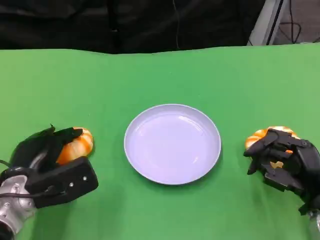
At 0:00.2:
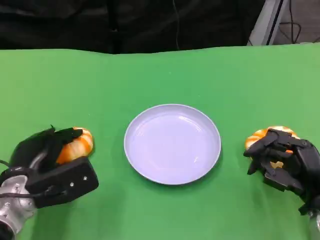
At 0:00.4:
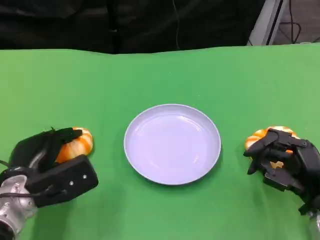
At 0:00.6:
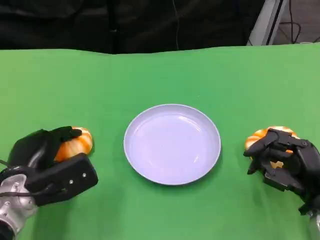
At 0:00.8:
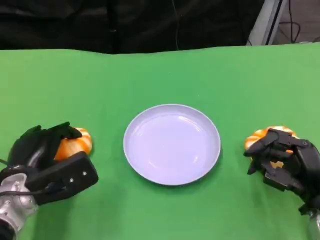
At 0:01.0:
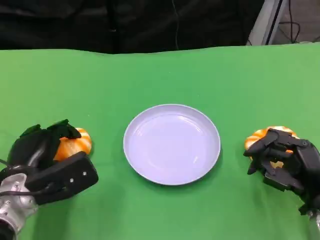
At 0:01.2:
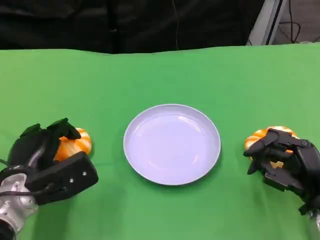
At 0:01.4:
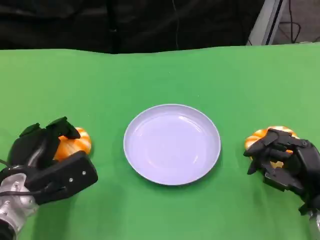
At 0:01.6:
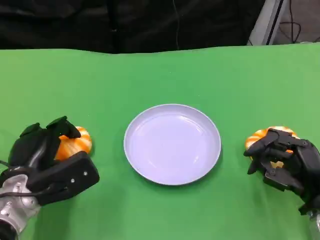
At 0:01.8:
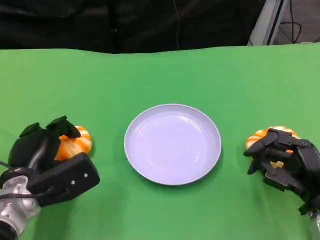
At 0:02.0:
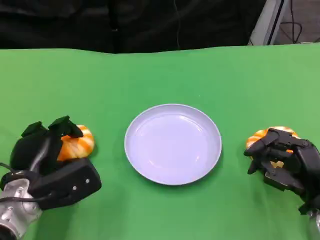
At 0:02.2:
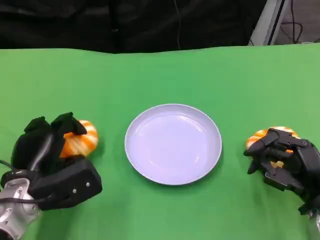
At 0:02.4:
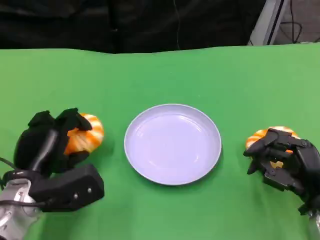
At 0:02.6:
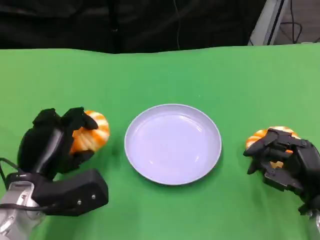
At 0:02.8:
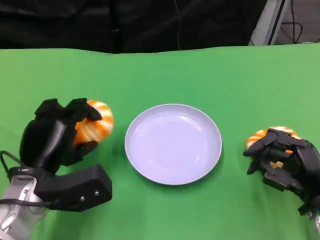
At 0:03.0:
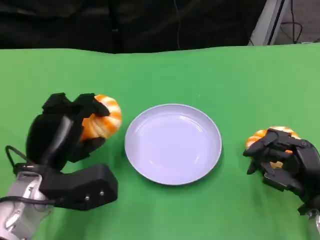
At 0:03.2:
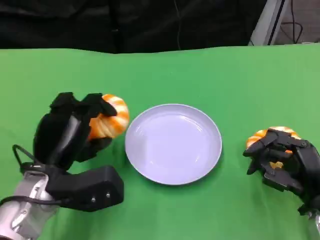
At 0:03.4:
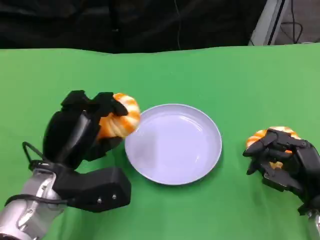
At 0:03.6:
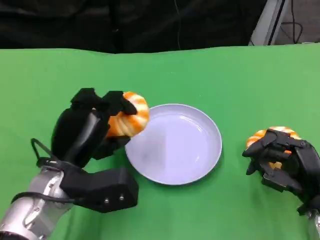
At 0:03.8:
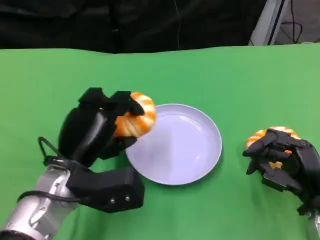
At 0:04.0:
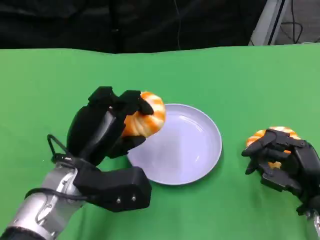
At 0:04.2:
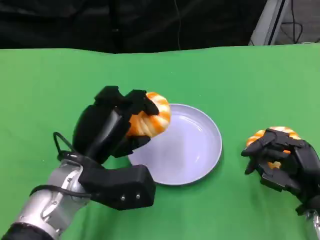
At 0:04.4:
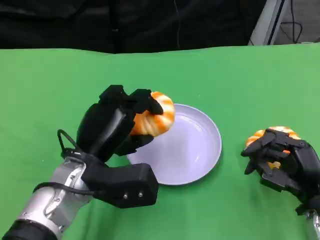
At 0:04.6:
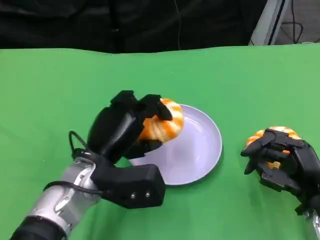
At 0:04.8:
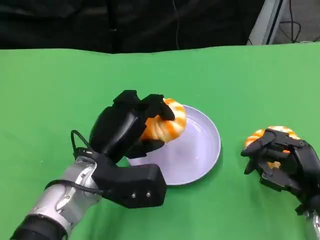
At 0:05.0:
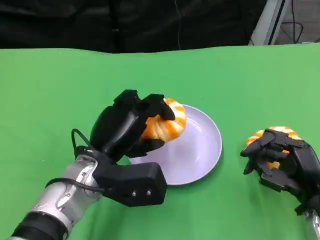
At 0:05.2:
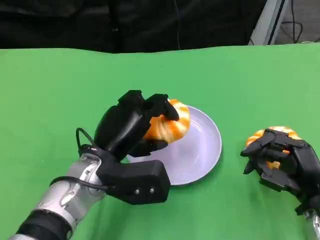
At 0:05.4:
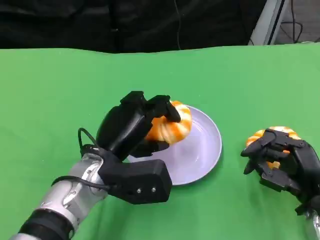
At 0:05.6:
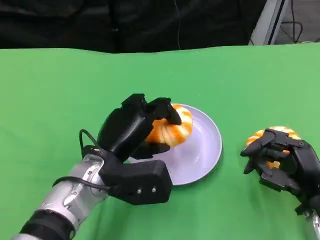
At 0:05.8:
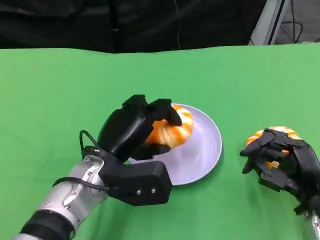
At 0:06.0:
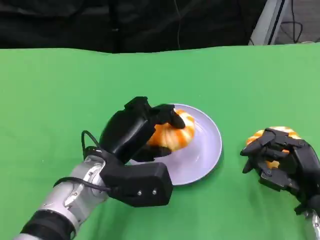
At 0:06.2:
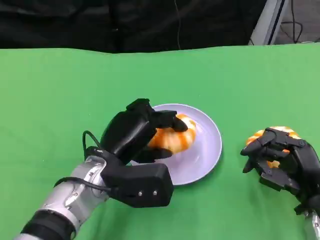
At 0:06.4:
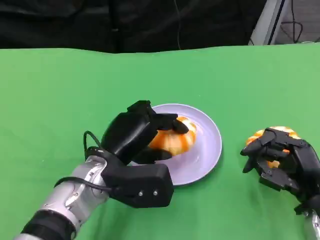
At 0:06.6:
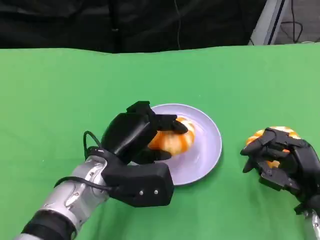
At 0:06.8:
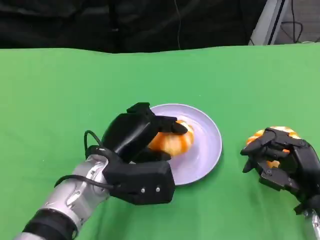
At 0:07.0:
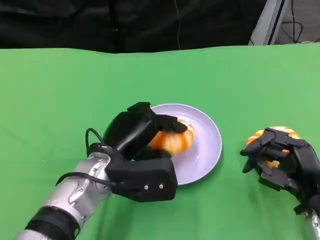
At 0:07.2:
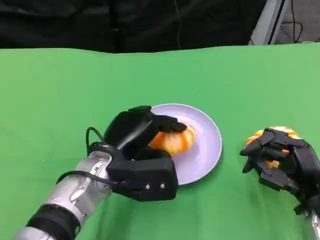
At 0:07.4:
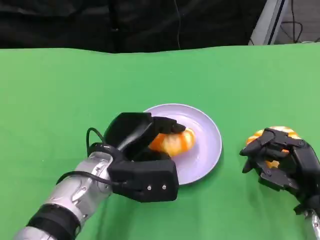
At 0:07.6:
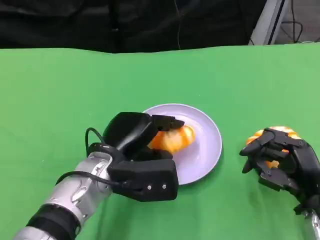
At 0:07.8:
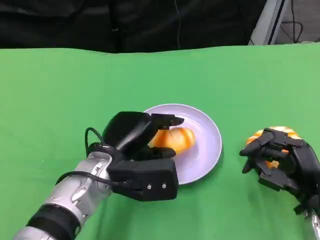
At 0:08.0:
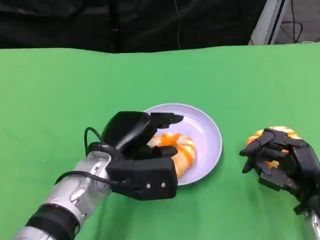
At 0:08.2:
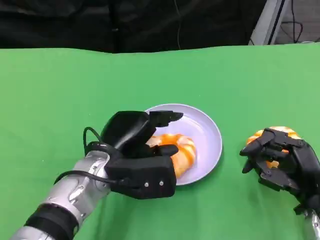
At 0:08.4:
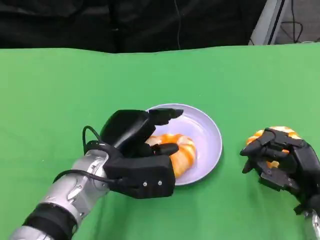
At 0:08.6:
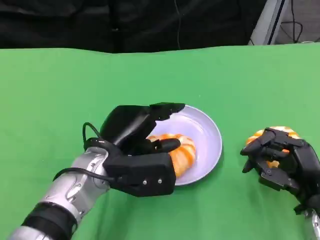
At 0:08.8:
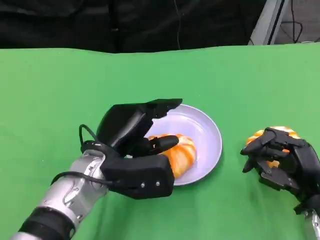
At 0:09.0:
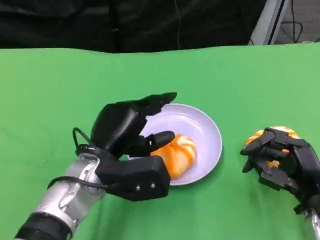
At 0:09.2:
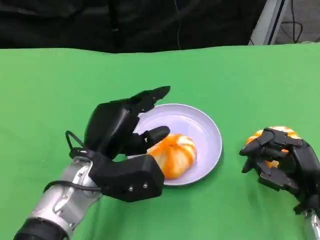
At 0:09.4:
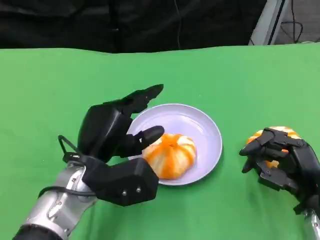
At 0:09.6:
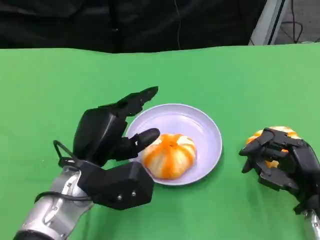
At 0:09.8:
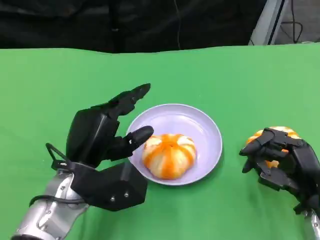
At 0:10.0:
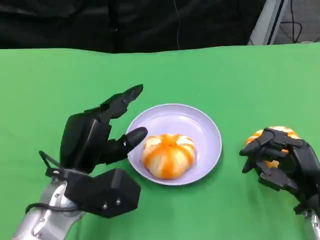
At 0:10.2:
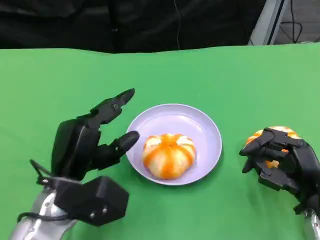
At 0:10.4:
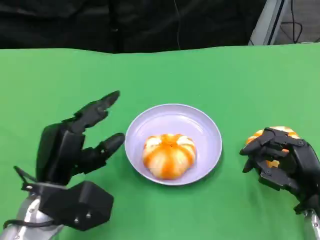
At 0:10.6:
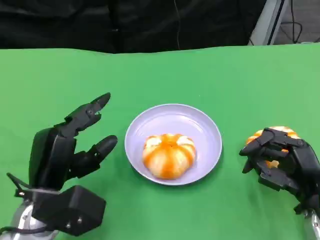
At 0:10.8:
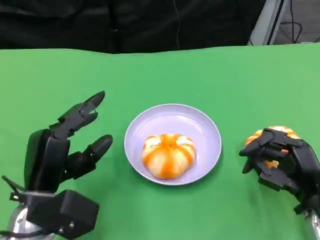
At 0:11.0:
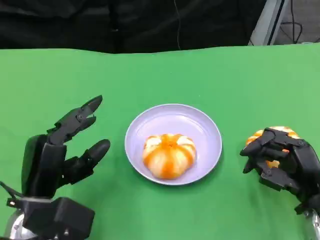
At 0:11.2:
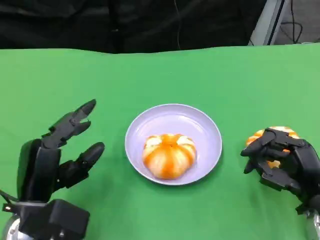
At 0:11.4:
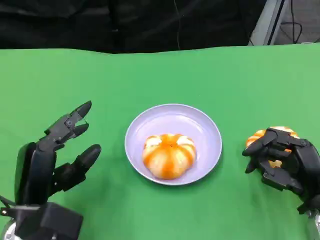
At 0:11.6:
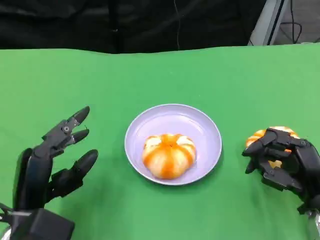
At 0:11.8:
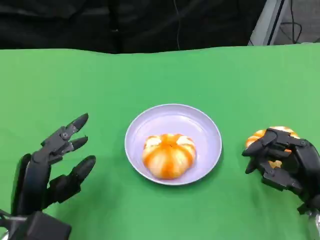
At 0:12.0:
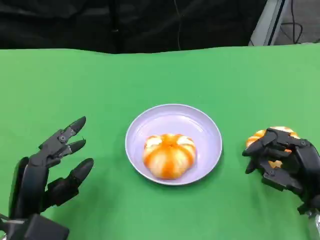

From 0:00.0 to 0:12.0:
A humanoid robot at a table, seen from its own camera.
Task of the whole recording: Grasp the bread from the table and place it into the plate.
From 0:00.0 to 0:01.6: The hands move only a little.
From 0:03.0 to 0:04.4: The left hand is displaced to the right by roughly 5 cm.
From 0:04.4 to 0:09.0: There are only small adjustments of the hands.
From 0:09.0 to 0:10.4: The left hand moves to the left, approximately 5 cm.
From 0:10.4 to 0:12.0: The left hand changes place by approximately 5 cm.

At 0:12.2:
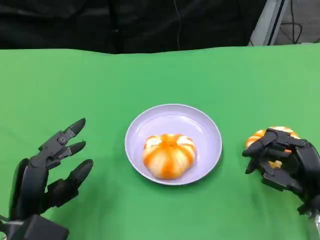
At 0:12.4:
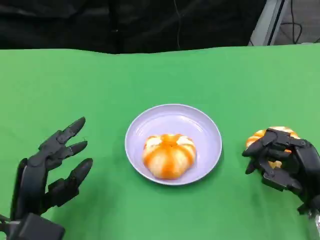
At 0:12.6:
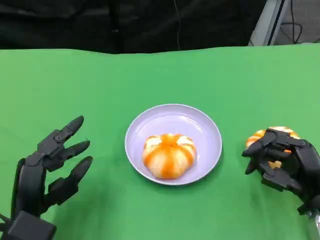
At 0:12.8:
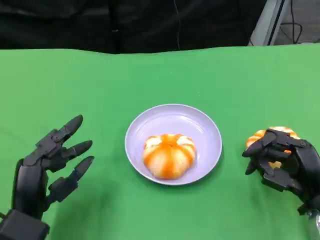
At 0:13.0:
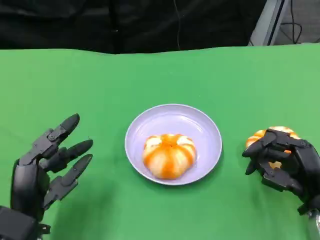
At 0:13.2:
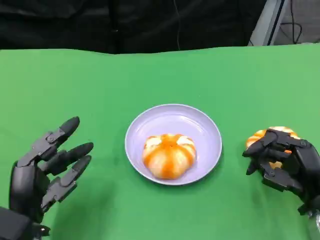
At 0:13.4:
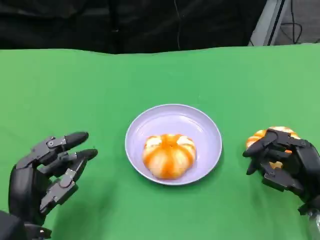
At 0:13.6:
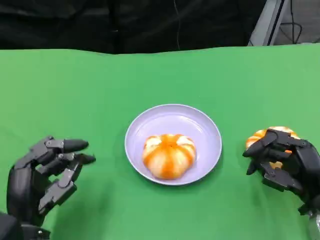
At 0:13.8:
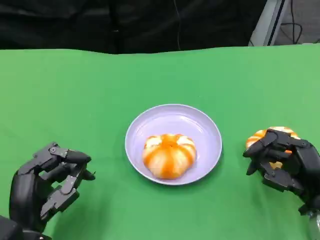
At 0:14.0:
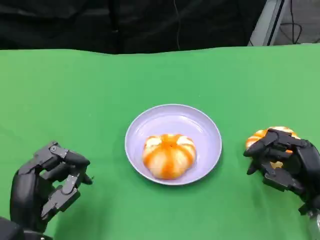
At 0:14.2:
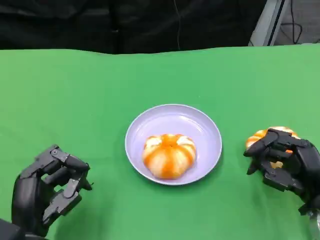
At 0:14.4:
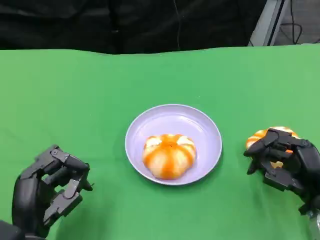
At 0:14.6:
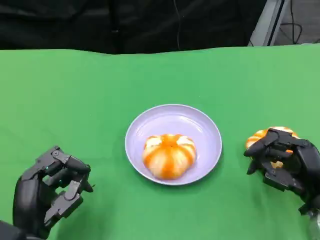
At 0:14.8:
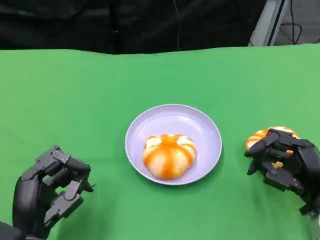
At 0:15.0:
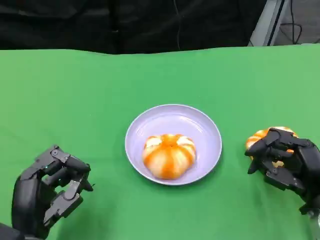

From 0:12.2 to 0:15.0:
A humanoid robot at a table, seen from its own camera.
Task of the whole recording: Grasp the bread from the table and place it into the plate.
From 0:13.6 to 0:15.0: There are only small adjustments of the hands.

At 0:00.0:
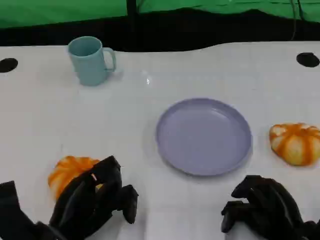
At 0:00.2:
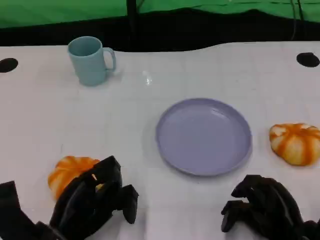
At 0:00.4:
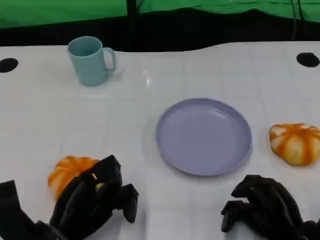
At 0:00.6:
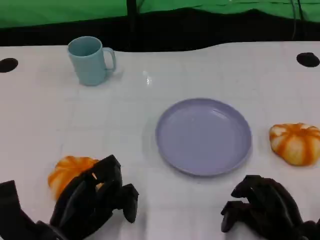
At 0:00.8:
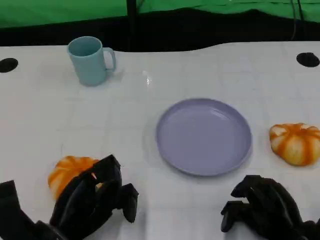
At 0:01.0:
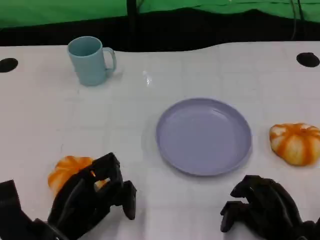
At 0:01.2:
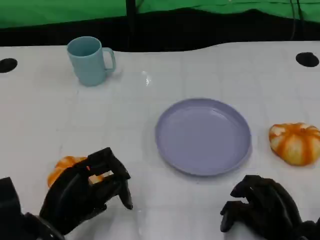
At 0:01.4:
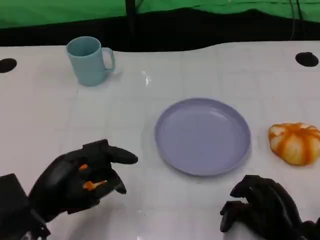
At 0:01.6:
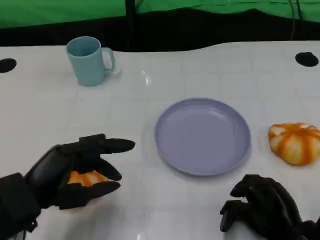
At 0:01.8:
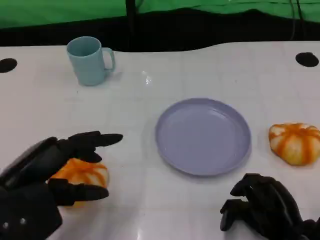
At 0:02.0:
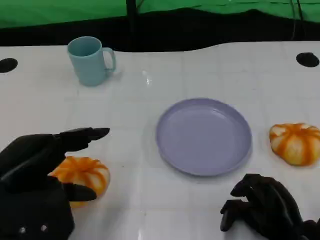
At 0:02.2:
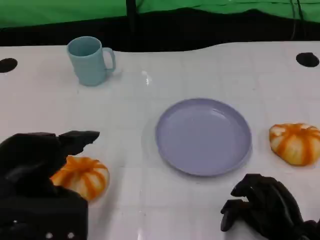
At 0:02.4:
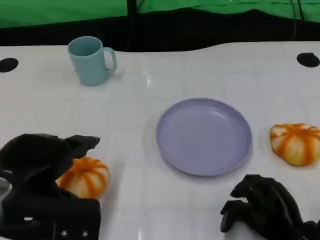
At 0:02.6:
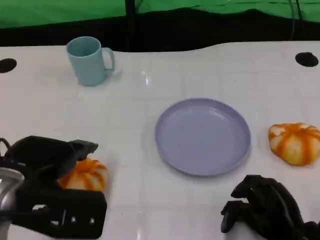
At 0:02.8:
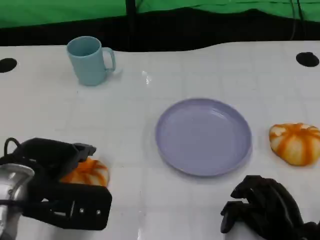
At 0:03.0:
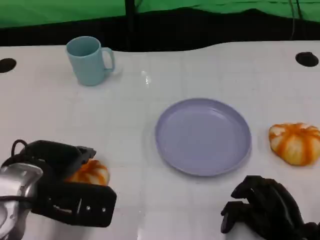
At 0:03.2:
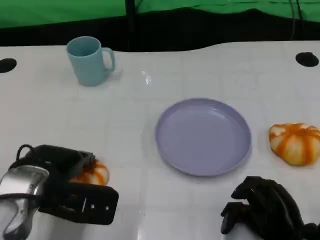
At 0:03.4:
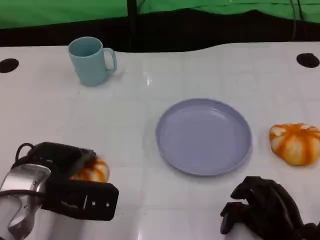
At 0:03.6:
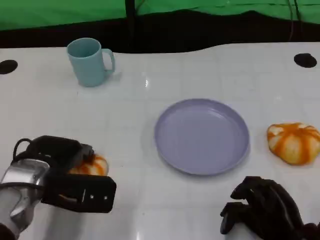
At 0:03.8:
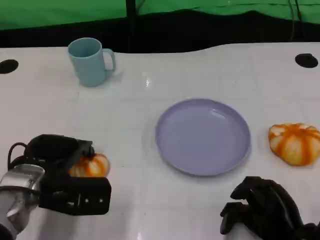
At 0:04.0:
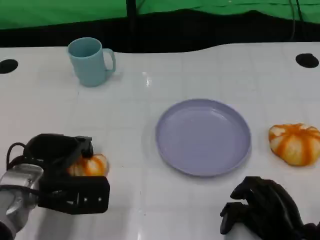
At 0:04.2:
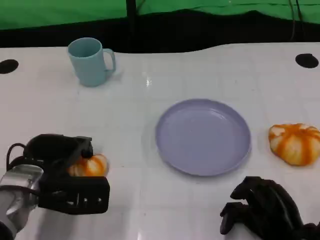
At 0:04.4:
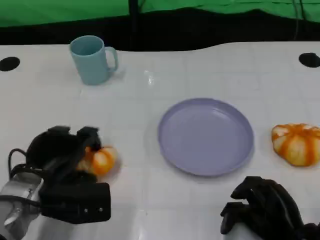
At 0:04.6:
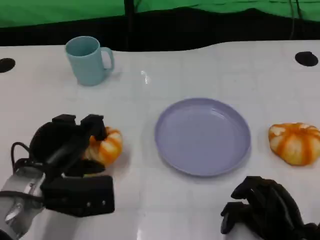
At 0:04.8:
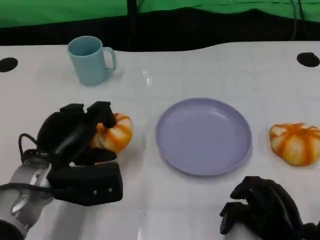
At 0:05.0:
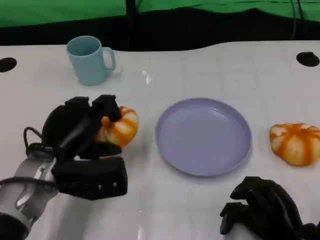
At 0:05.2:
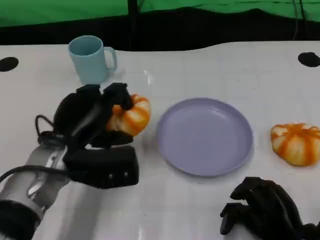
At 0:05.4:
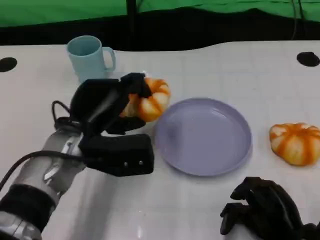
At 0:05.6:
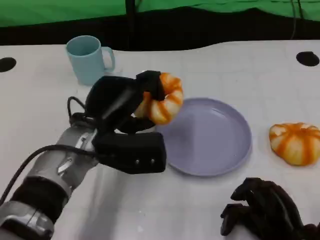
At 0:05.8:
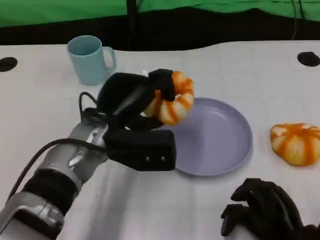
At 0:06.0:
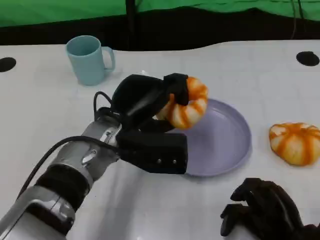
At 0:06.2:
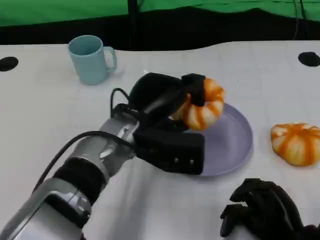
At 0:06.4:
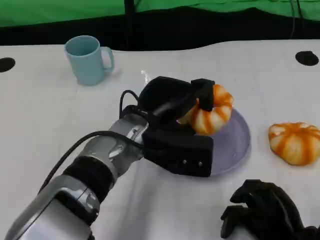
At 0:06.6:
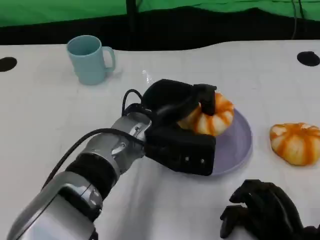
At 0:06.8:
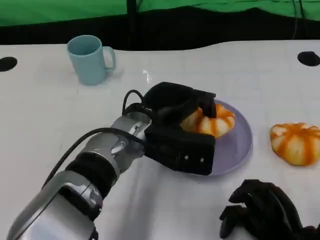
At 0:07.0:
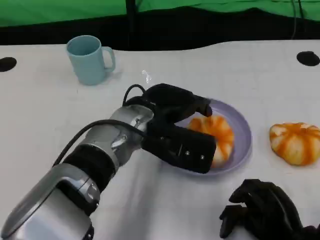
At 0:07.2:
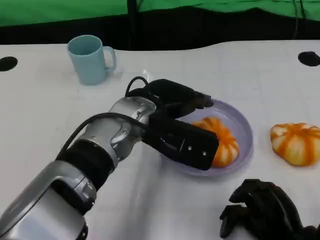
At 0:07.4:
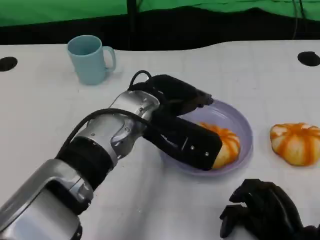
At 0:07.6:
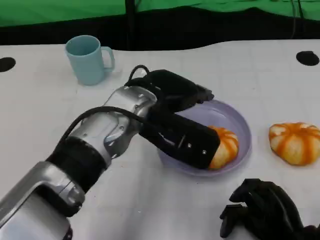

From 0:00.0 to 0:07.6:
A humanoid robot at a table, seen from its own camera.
Task of the whole recording: Grasp the bread from the table and place it into the plate.
From 0:00.0 to 0:01.6: The left hand travels upward by about 10 cm.
From 0:01.6 to 0:03.0: The left hand moves forward, about 5 cm.
From 0:04.6 to 0:06.0: The left hand travels to the right and upward by some 10 cm.
From 0:06.0 to 0:07.6: The left hand is displaced upward by some 5 cm.
